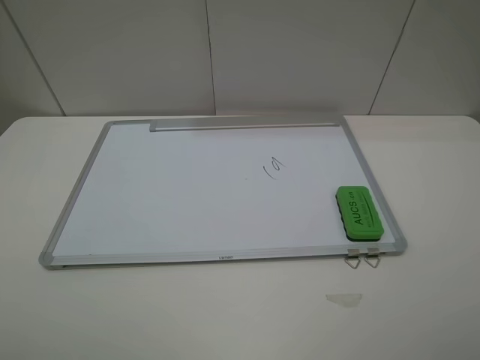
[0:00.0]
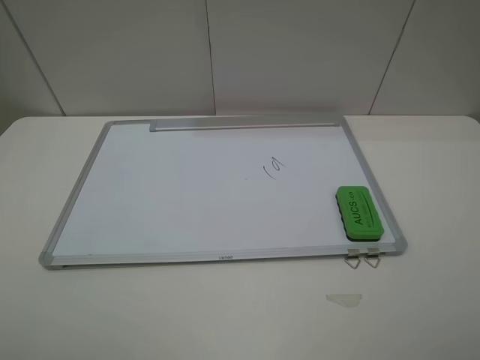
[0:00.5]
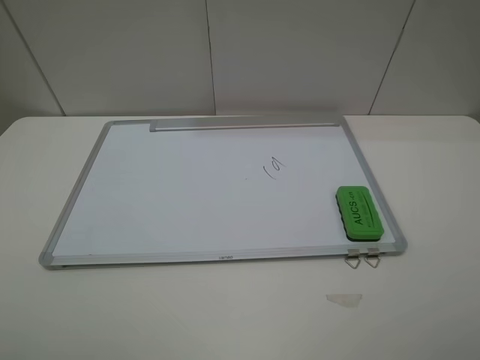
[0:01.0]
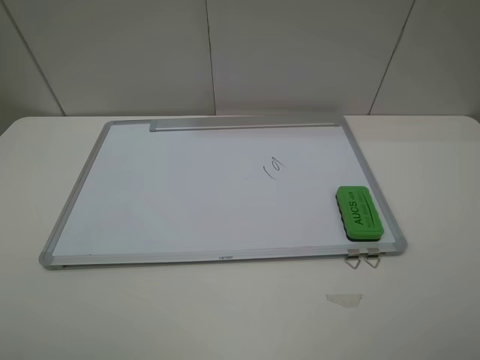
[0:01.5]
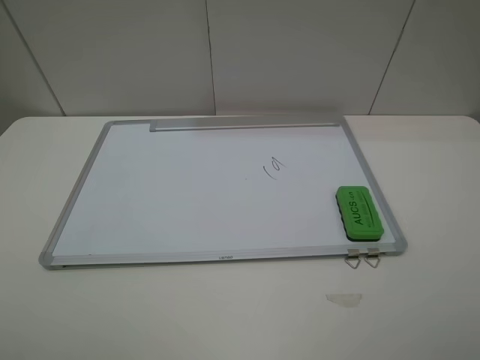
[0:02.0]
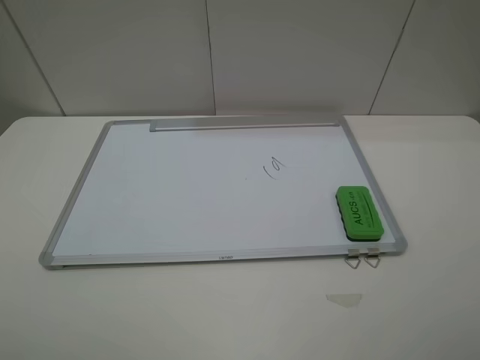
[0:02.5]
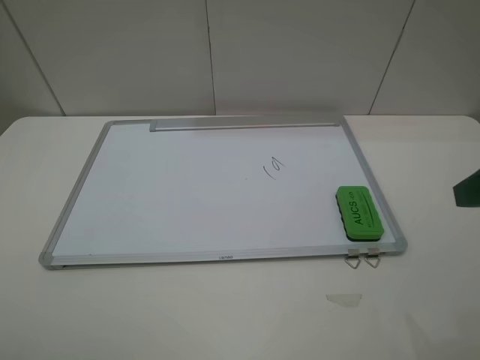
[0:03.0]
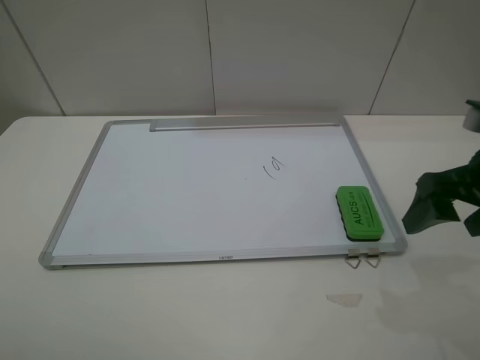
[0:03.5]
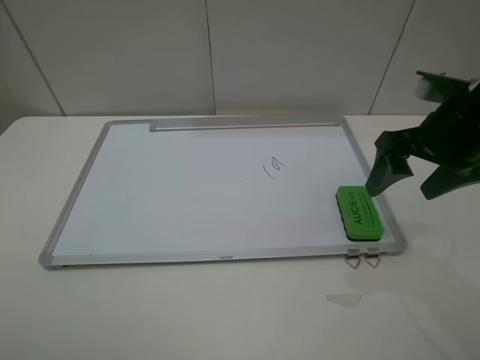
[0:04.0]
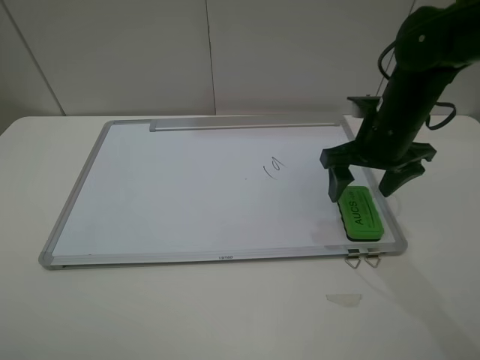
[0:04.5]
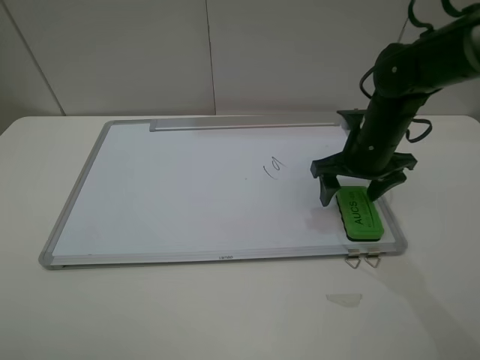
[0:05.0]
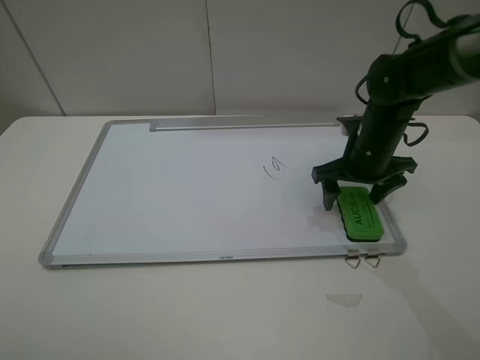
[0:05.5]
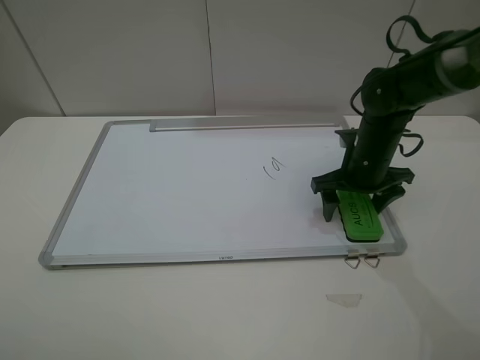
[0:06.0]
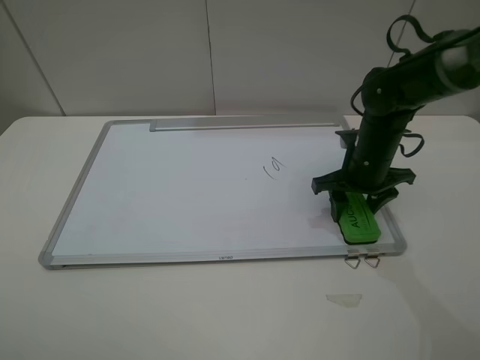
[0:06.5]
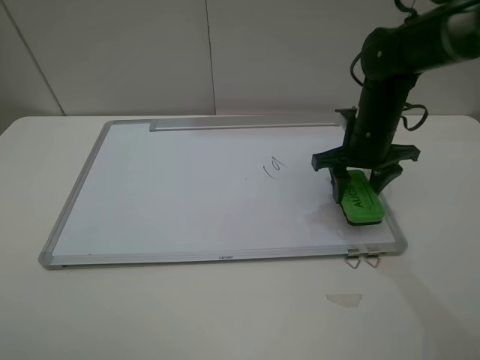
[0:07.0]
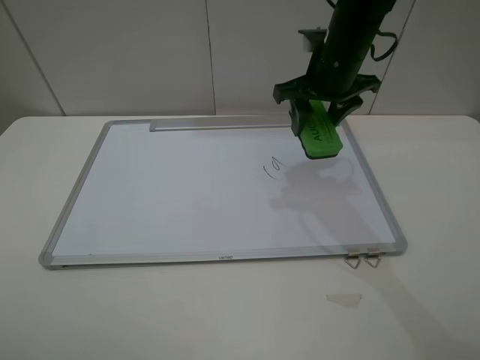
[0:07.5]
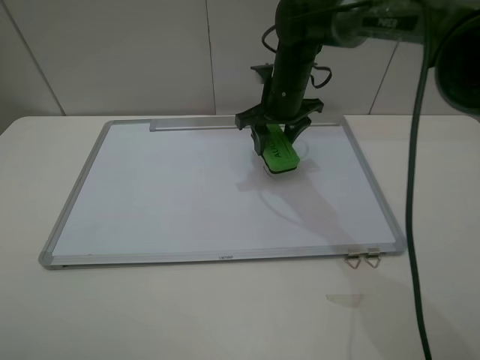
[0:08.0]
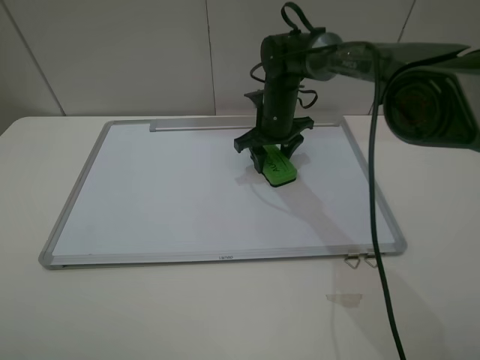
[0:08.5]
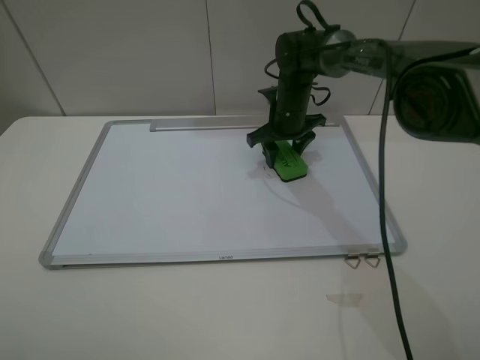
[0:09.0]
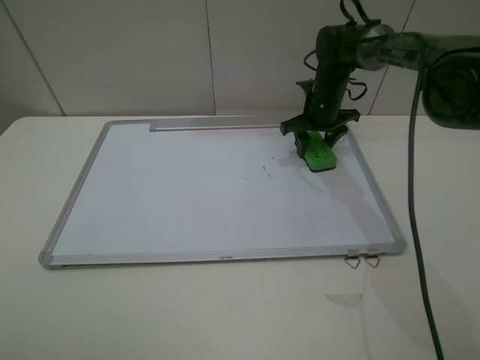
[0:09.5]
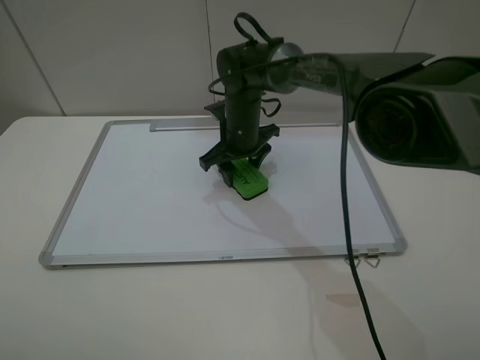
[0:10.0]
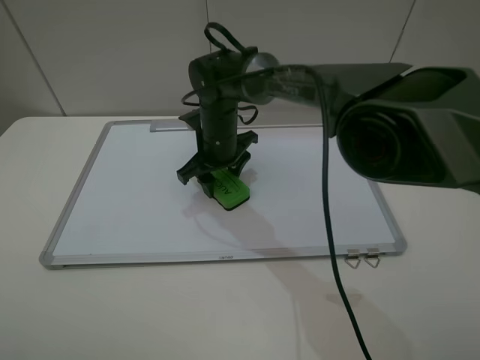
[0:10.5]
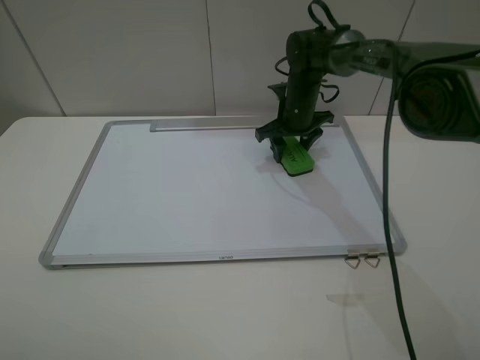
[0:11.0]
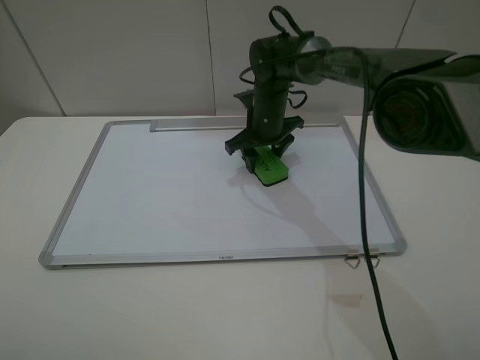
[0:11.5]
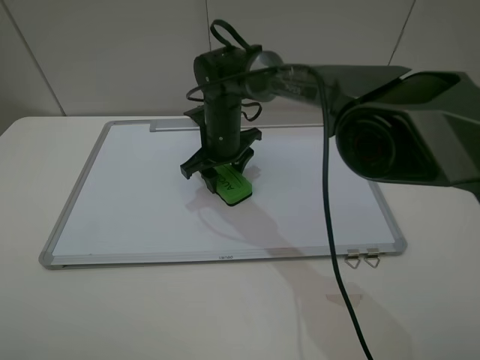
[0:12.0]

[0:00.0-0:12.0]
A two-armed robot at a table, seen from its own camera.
Step, 0:00.0 to 0:06.0: Grasp the eraser with the right gripper.
0:00.0 to 0:02.0: Neither gripper changes place.
0:02.0 to 0:04.0: The right gripper shifts roughly 25 cm forward.
0:04.0 to 0:06.0: The right gripper travels downward and forward by roughly 15 cm.
0:06.0 to 0:08.0: The right gripper heads to the left and forward, covering about 15 cm, and closes its fingers.
0:08.0 to 0:10.0: The right gripper heads to the left and downward, covering some 10 cm.
0:10.0 to 0:12.0: The right gripper reaches roughly 15 cm to the right, then returns.

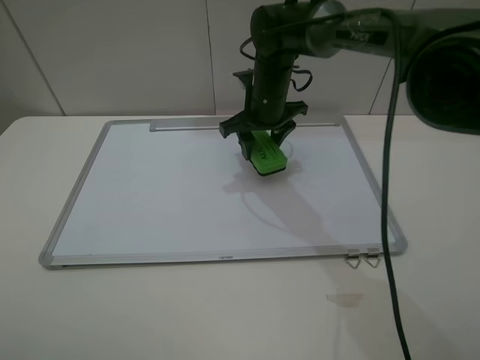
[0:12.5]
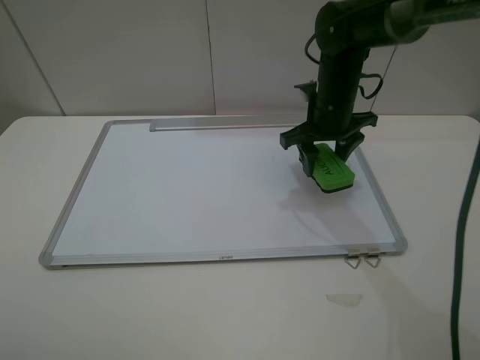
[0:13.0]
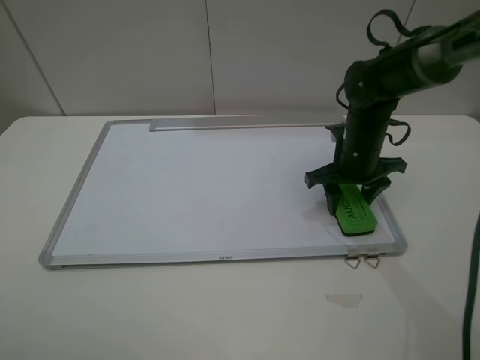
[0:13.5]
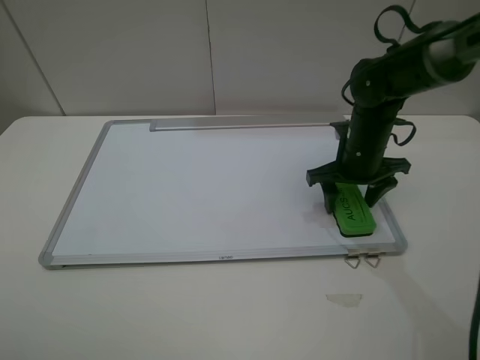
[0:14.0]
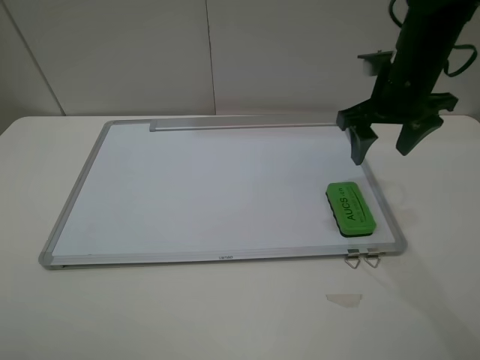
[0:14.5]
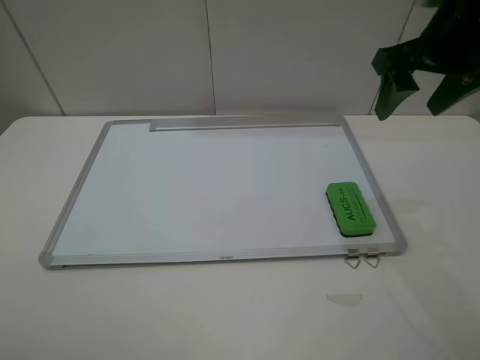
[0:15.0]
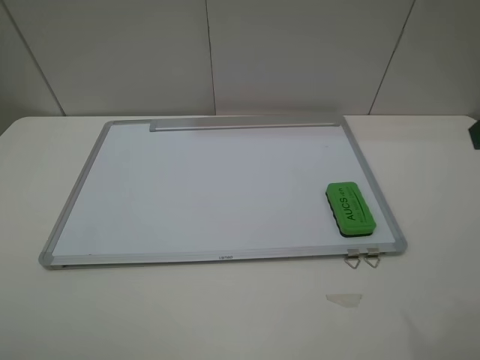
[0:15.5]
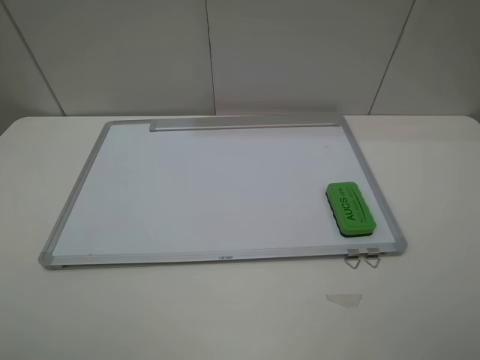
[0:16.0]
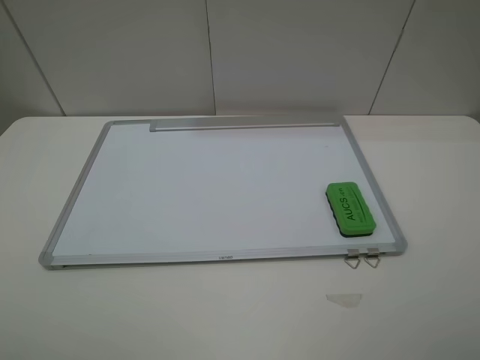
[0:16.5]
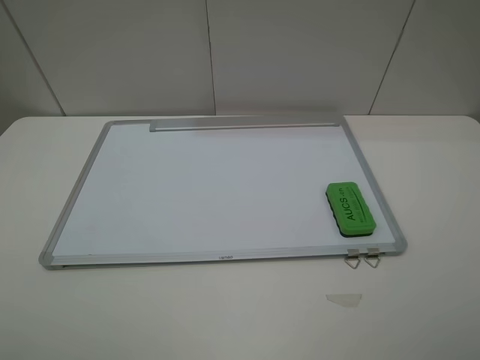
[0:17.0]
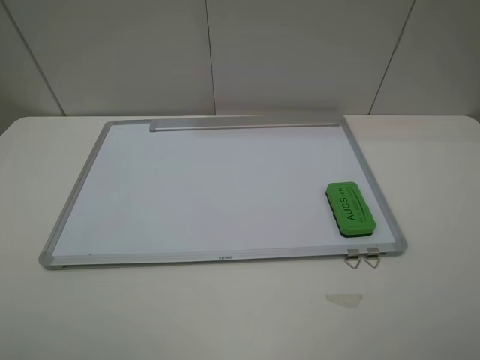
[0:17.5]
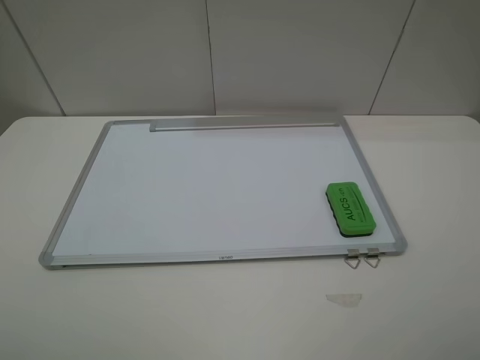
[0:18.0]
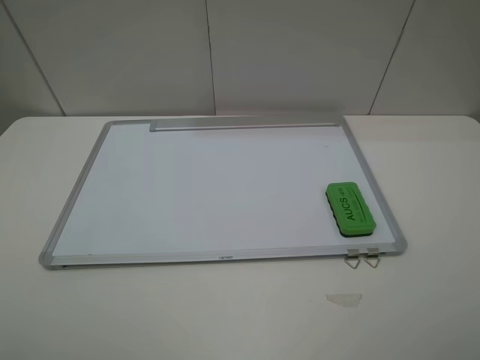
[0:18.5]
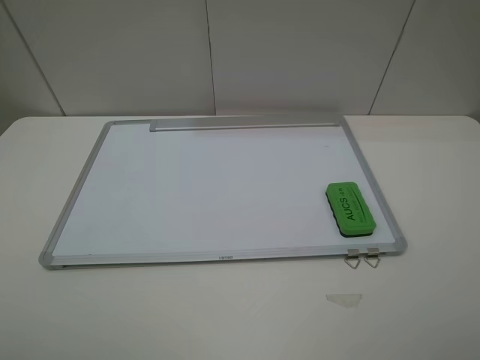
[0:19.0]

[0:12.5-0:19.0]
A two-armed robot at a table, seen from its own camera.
Step, 0:12.5 to 0:14.0: Place the eraser with the right gripper.
0:12.5 to 0:14.5: The right gripper is displaced to the right, backward and upward by approximately 20 cm, and opens its fingers.
0:14.5 to 0:17.0: The right gripper is displaced backward by some 35 cm.
